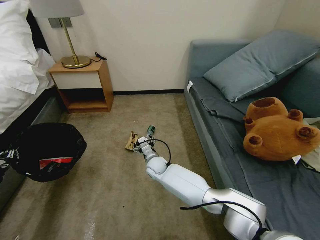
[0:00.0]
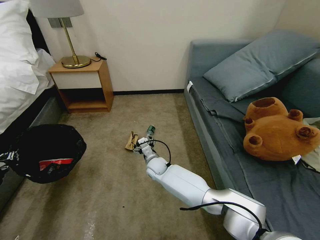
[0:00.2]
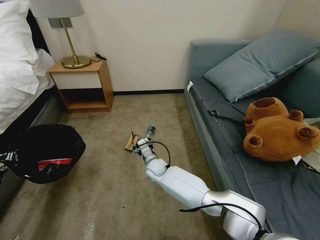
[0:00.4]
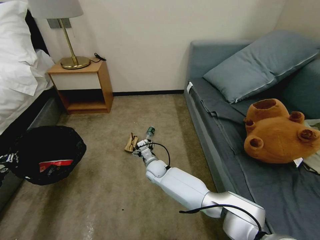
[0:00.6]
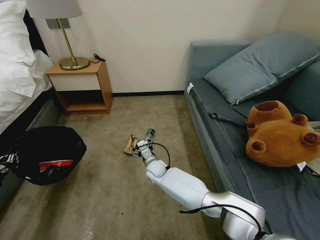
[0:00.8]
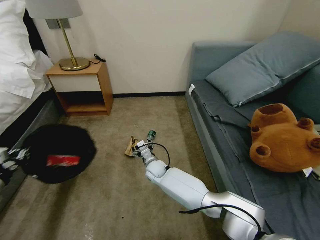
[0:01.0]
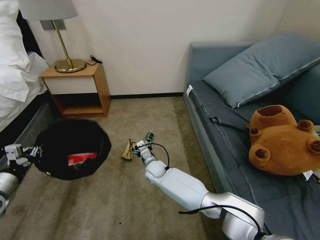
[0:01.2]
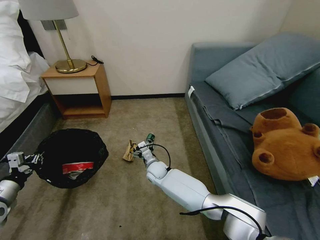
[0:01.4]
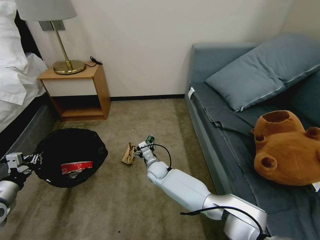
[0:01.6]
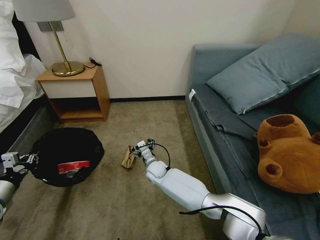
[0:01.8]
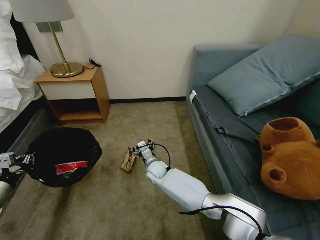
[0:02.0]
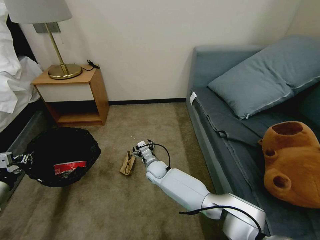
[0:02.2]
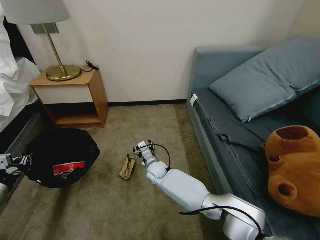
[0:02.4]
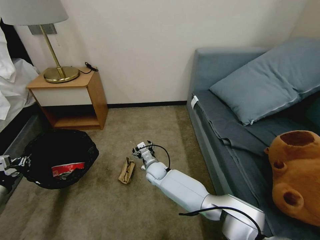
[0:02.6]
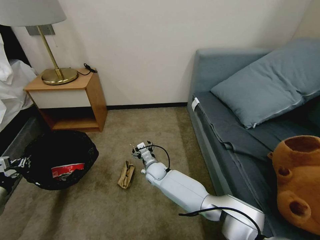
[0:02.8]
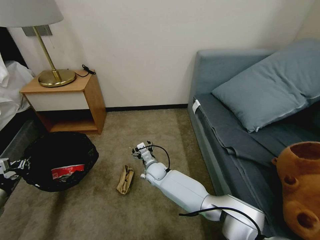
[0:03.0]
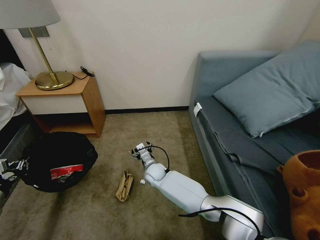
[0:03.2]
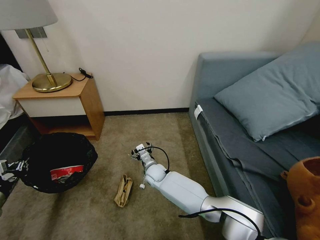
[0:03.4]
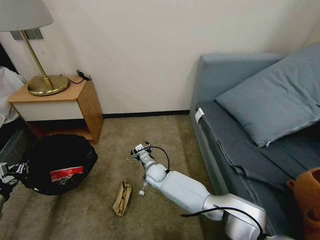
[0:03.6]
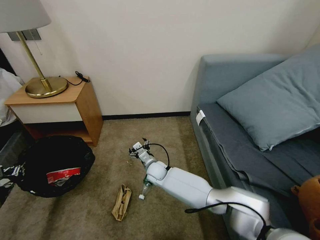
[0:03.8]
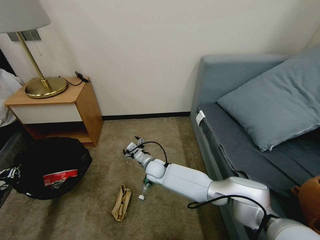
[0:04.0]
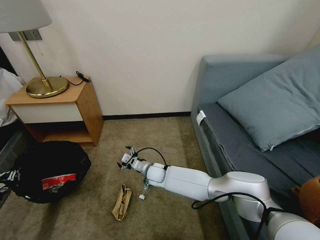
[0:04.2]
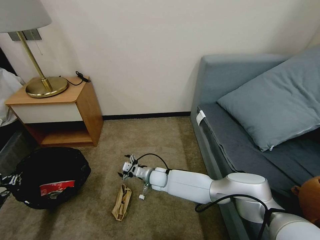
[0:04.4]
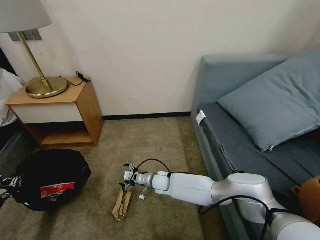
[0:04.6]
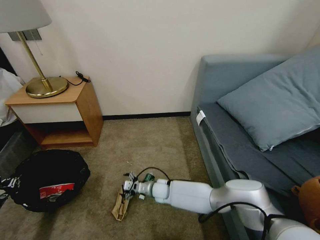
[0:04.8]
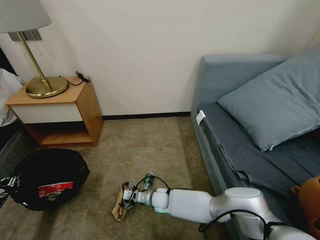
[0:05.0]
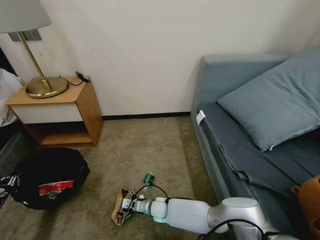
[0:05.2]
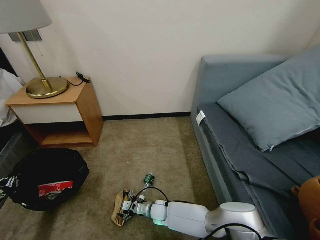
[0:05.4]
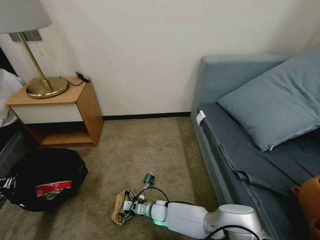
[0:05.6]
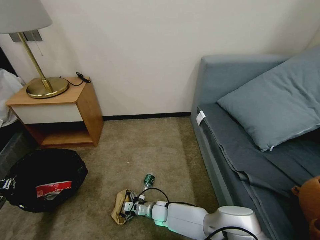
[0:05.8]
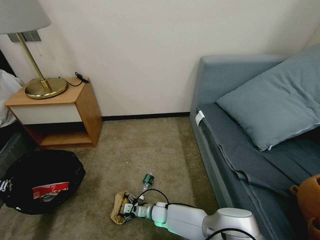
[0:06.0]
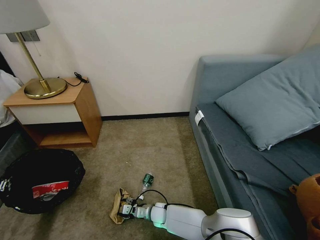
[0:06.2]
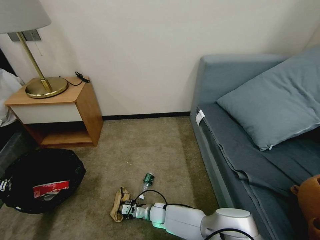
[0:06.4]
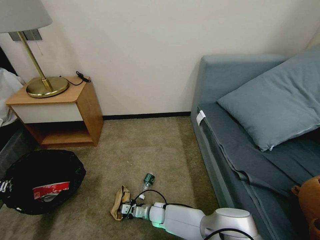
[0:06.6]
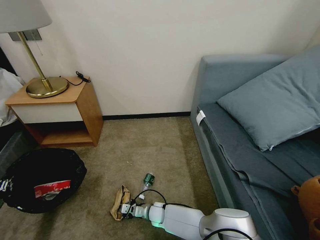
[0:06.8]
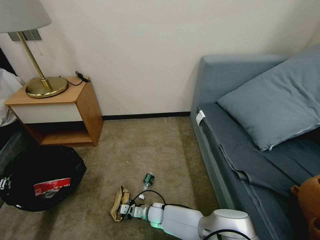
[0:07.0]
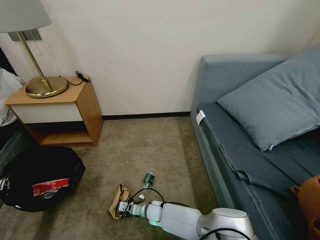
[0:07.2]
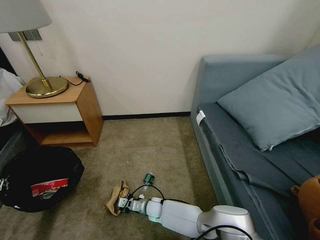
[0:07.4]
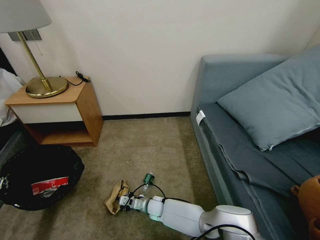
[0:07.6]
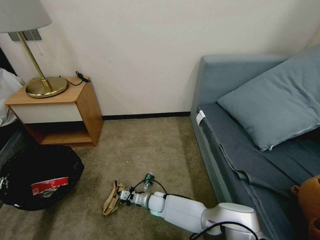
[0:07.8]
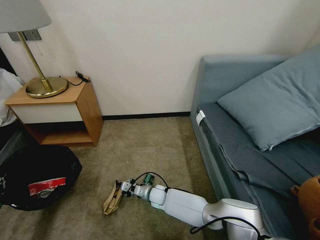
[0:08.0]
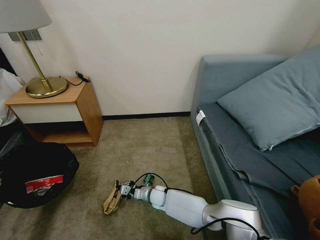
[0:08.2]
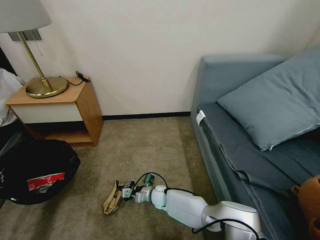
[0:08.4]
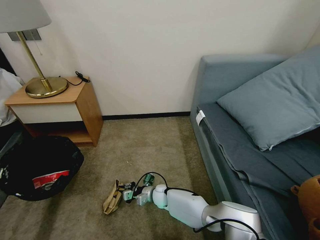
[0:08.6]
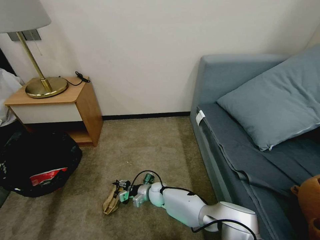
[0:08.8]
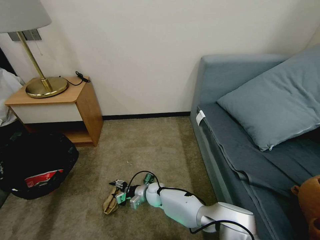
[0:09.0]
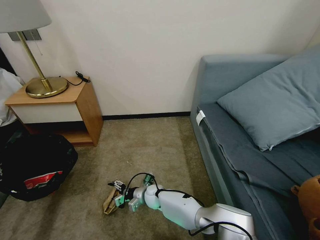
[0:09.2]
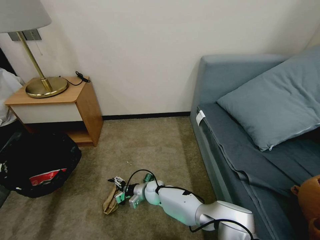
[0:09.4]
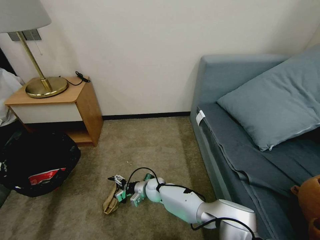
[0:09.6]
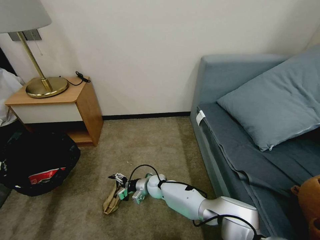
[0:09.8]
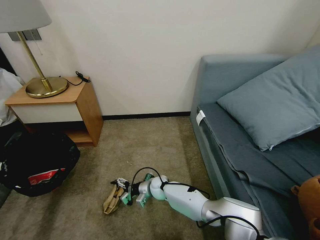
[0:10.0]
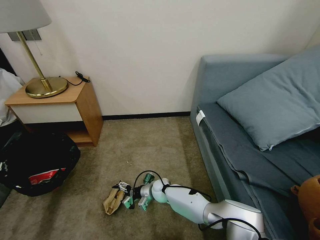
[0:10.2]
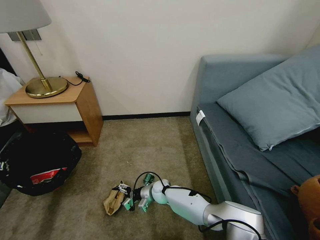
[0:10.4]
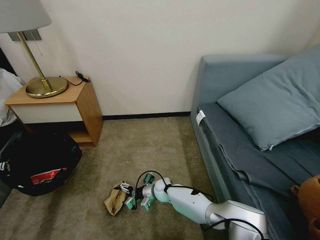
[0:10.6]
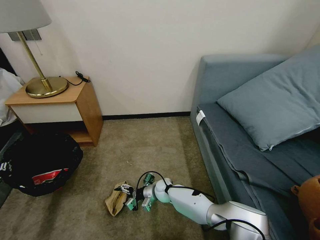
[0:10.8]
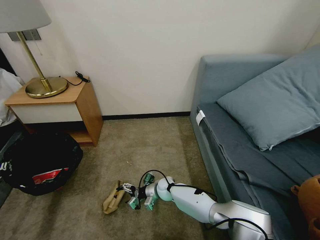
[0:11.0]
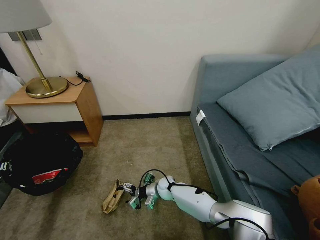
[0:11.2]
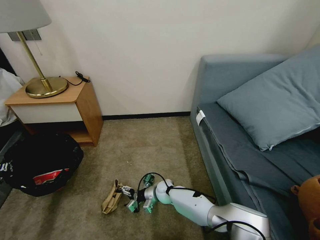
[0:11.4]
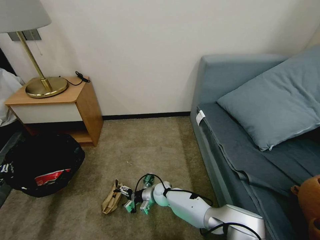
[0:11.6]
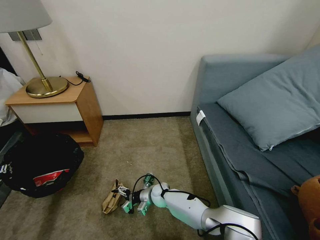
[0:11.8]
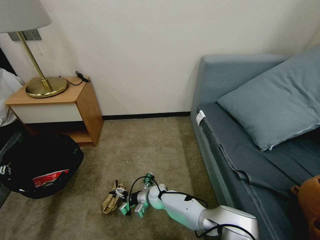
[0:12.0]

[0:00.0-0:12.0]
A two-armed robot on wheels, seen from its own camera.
Task of the whole recording: Pick up the trash bin, then pick up the garbage on the floor and place it into the trash bin.
0:00.0 to 0:01.6: The left gripper is displaced to the right by approximately 5 cm.
0:04.4 to 0:06.0: The right gripper heads downward and backward, covering approximately 15 cm.
0:06.0 to 0:07.6: The right gripper closes up.
0:07.6 to 0:09.0: The left gripper ends up roughly 5 cm from where it was. The right gripper moves some 5 cm, and opens.
0:09.0 to 0:10.4: The right gripper opens up.
0:10.4 to 0:12.0: There are only small adjustments of the grippers.

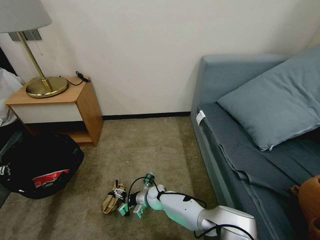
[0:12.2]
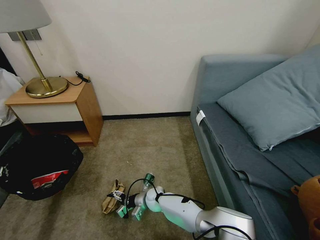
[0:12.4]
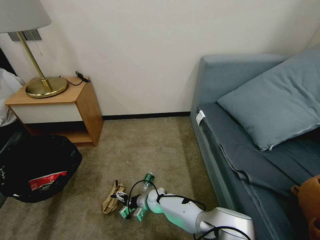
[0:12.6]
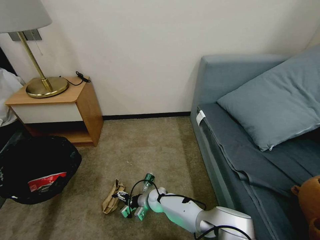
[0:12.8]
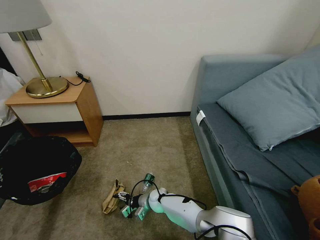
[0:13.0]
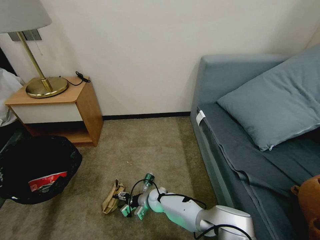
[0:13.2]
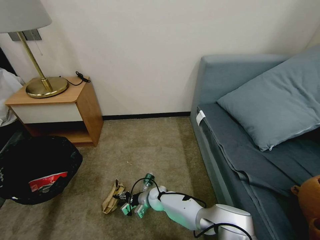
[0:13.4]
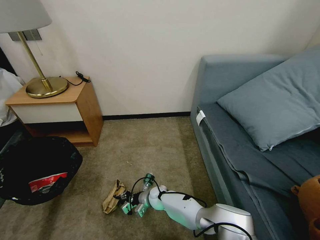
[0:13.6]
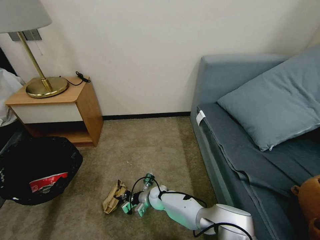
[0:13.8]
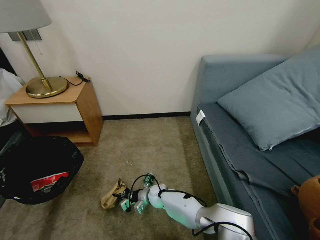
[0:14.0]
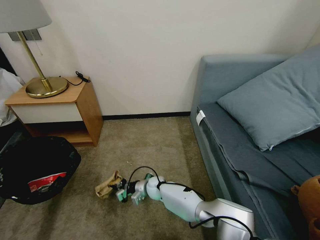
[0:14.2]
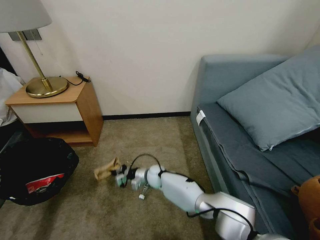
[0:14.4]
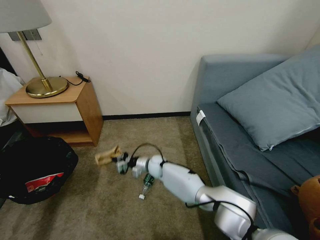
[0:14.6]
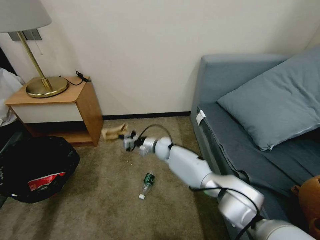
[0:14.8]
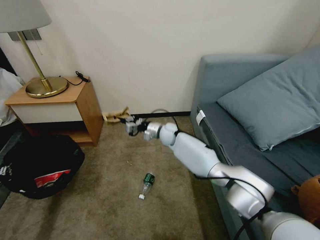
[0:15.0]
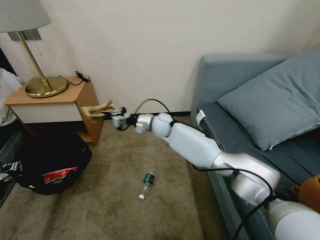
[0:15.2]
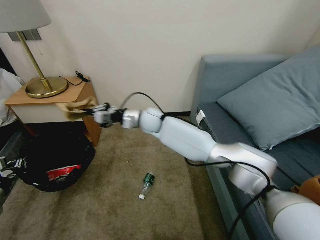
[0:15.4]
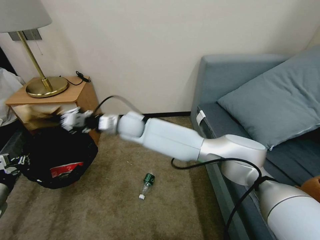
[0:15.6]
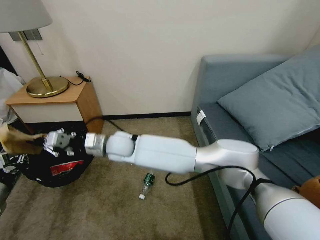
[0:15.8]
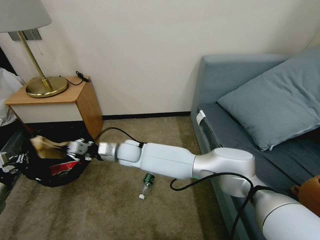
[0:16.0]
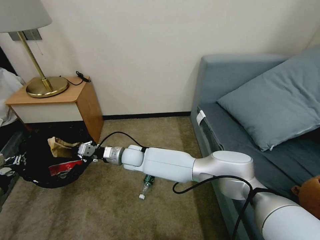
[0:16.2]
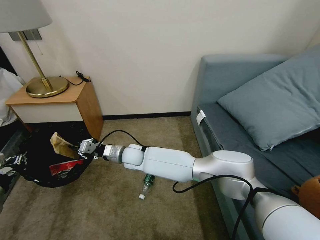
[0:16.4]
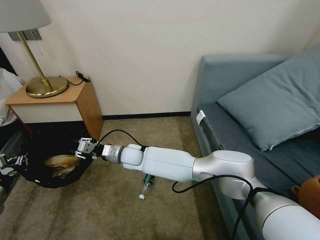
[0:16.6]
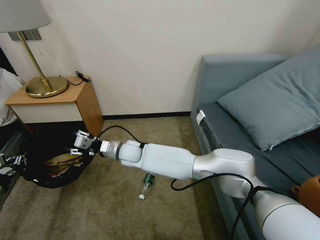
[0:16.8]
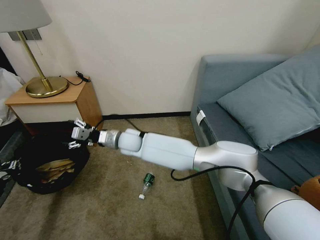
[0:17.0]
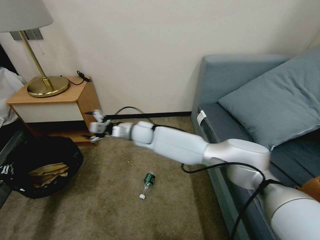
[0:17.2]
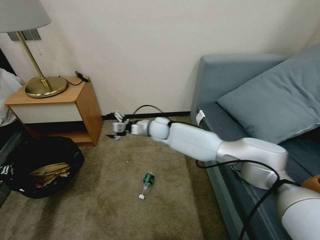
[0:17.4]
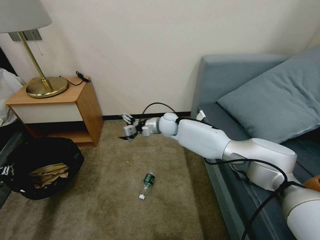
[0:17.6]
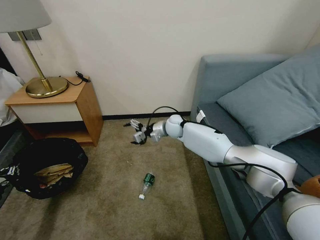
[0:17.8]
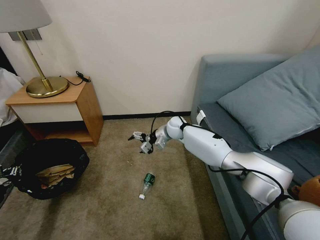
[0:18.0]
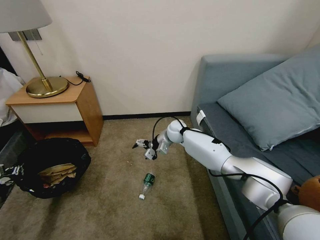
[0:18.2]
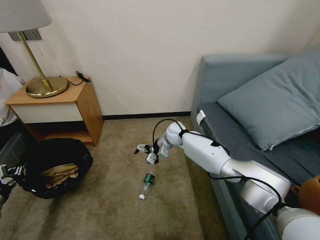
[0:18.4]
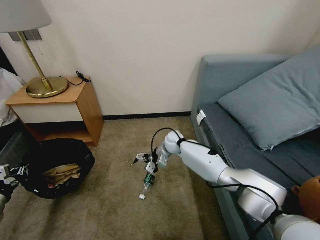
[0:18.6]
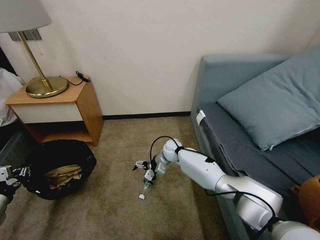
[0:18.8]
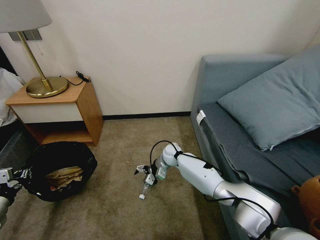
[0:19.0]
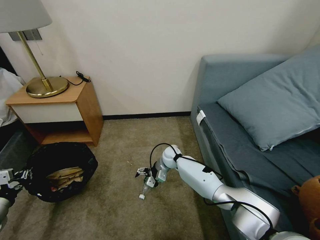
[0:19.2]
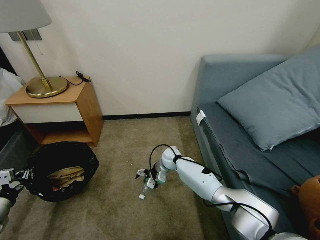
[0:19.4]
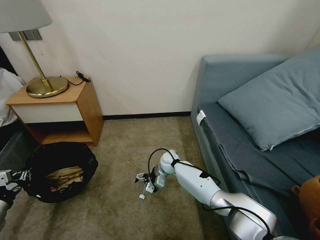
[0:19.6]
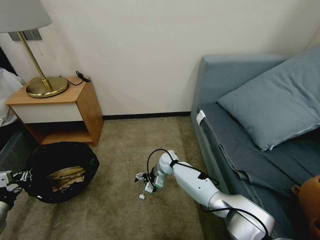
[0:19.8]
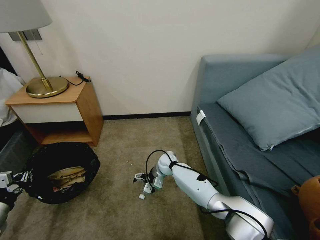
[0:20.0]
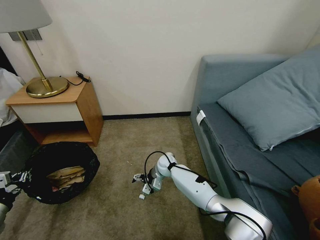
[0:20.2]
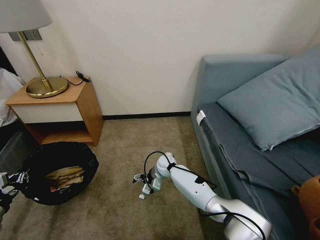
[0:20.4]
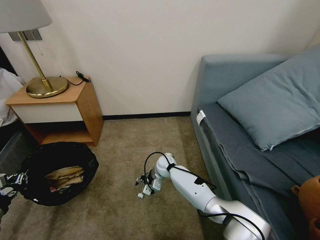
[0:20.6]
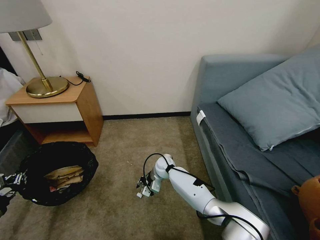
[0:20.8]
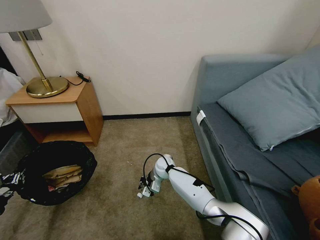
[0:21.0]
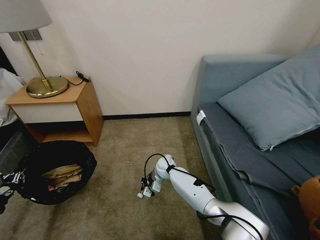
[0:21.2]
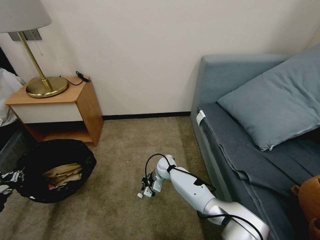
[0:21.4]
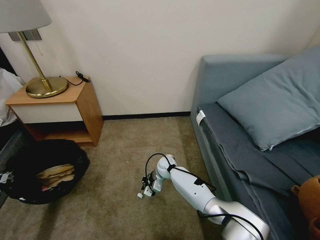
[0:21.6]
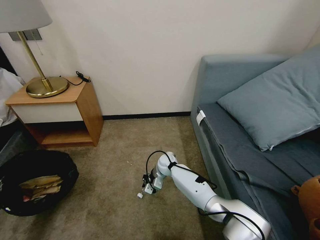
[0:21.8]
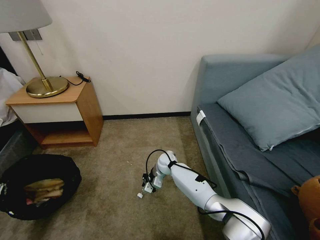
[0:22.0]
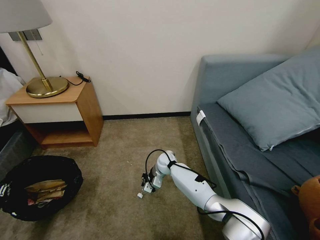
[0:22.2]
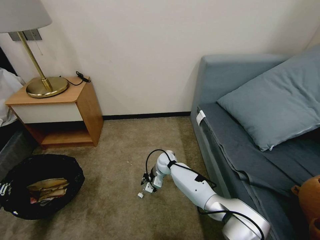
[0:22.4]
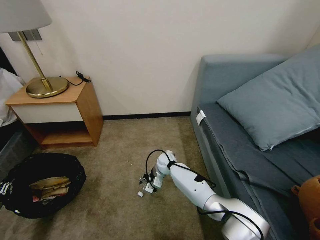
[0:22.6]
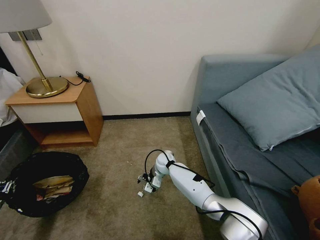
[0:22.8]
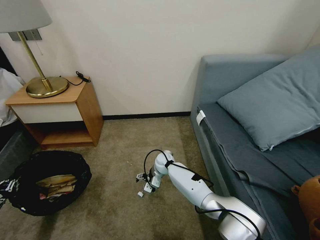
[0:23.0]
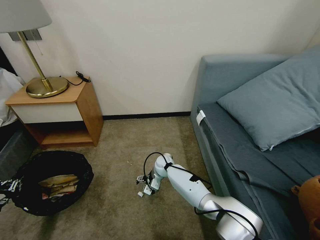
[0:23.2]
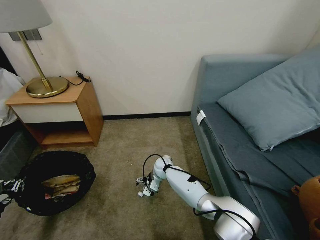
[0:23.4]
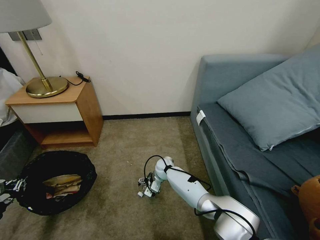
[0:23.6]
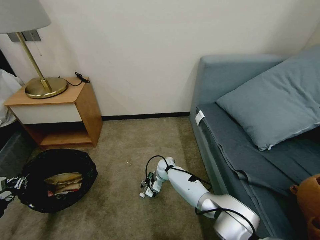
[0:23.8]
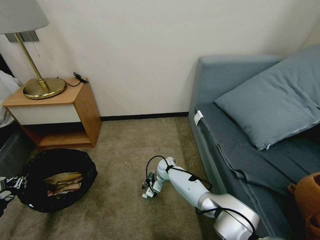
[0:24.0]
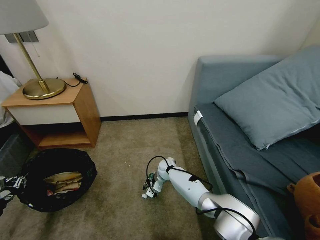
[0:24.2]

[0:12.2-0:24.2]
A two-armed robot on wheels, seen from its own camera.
Task of the whole recording: Pick up the trash bin, then pick up the garbage on the floor and place it into the trash bin.
0:12.2 to 0:13.8: The right gripper closes.
0:13.8 to 0:15.2: The right gripper moves upward and forward, approximately 35 cm, while the left gripper goes roughly 5 cm forward.
0:15.2 to 0:16.6: The right gripper is displaced to the left, backward and downward by some 20 cm.
0:16.6 to 0:18.2: The right gripper goes some 25 cm to the right and forward, and opens up; the left gripper moves roughly 5 cm.
0:18.2 to 0:19.8: The right gripper goes about 15 cm downward and backward.
0:19.8 to 0:21.2: The right gripper closes.
0:21.2 to 0:22.6: The left gripper moves to the left, some 5 cm. Meanwhile the right gripper opens its fingers.
0:22.6 to 0:24.2: The right gripper heads downward, covering some 5 cm, and opens, then closes again.
